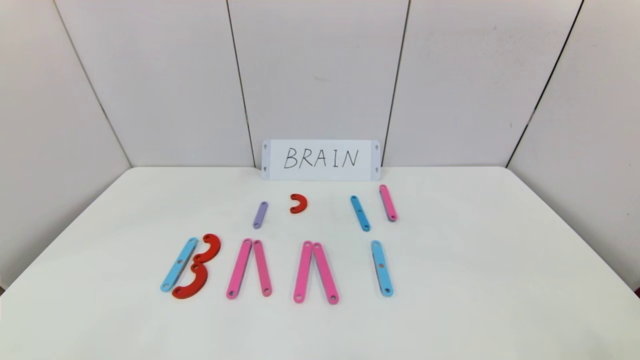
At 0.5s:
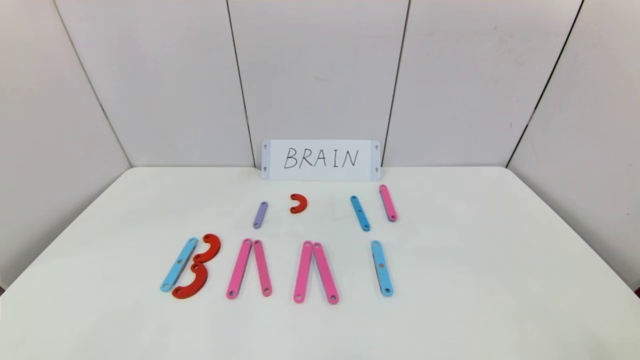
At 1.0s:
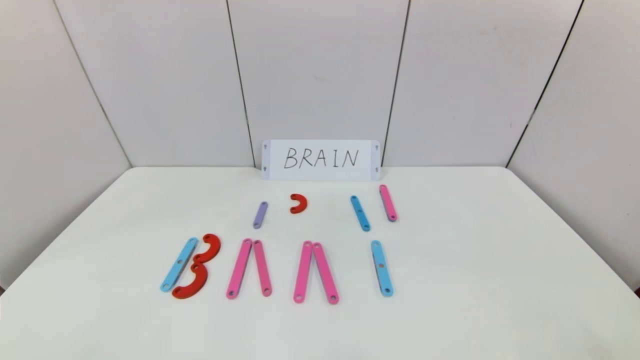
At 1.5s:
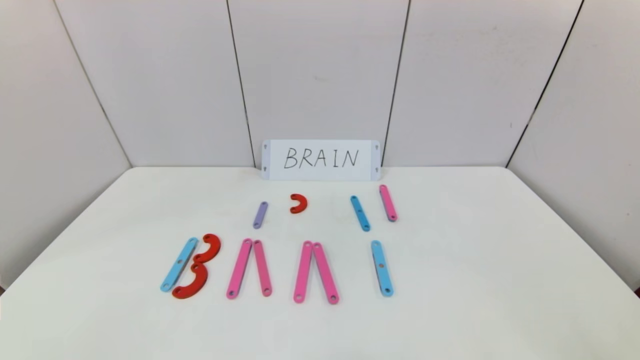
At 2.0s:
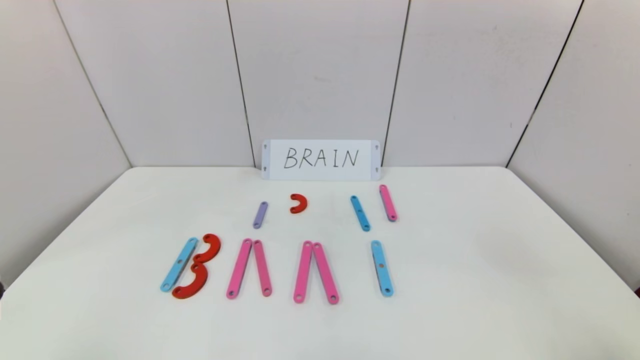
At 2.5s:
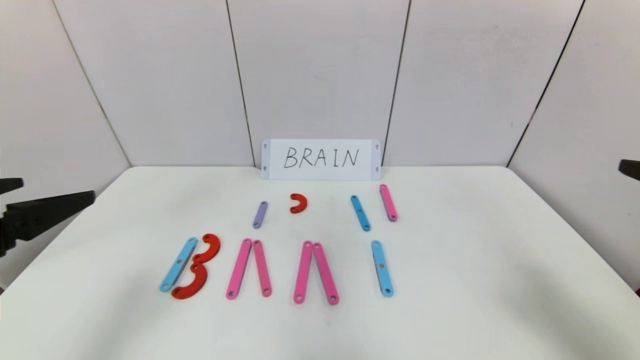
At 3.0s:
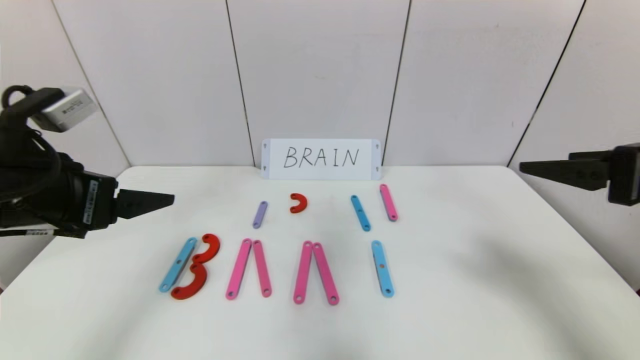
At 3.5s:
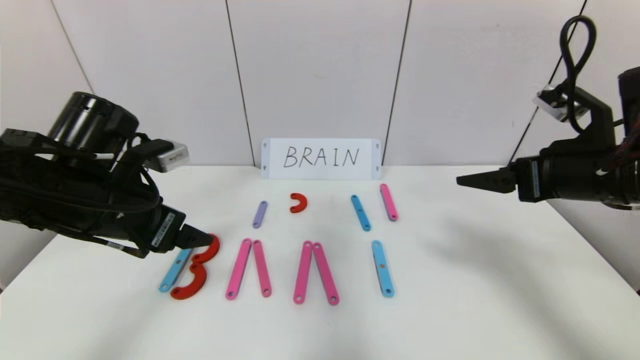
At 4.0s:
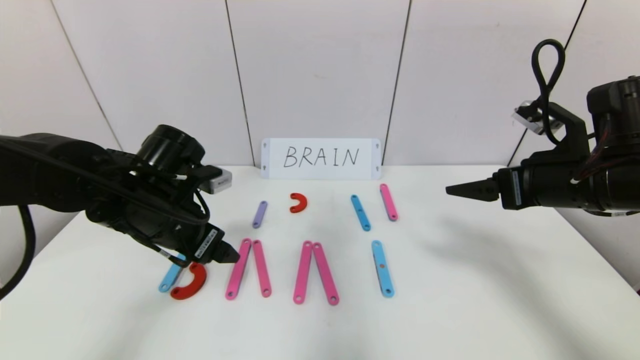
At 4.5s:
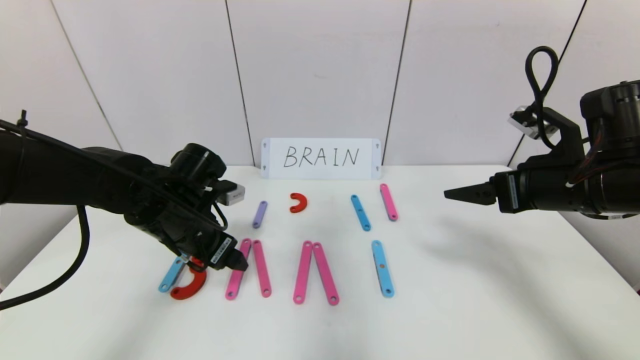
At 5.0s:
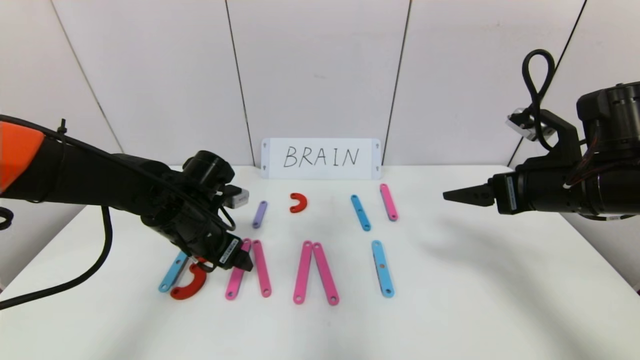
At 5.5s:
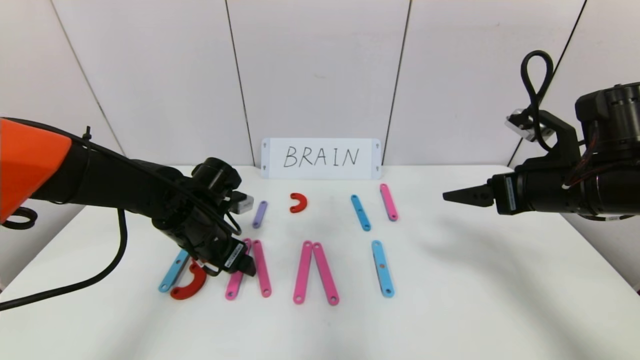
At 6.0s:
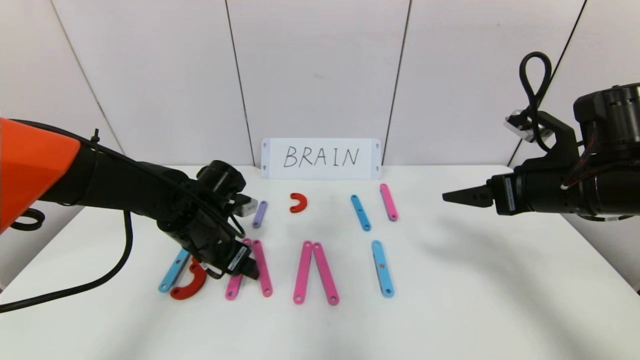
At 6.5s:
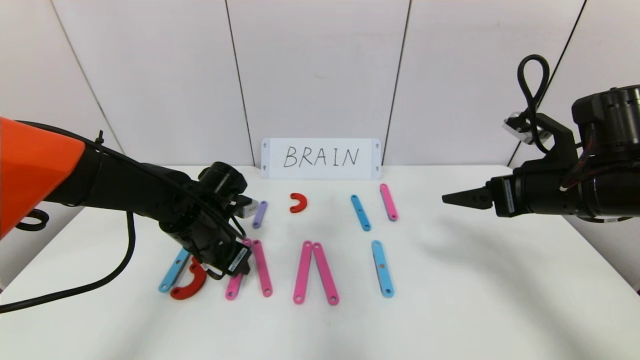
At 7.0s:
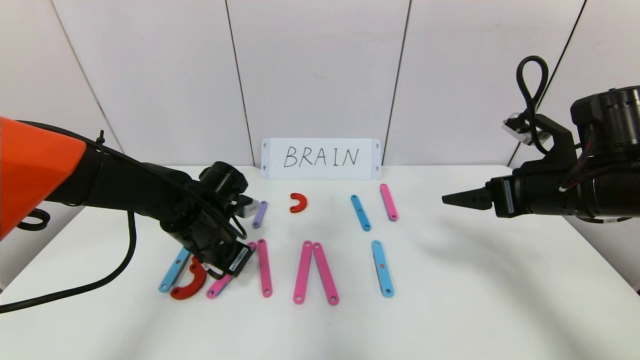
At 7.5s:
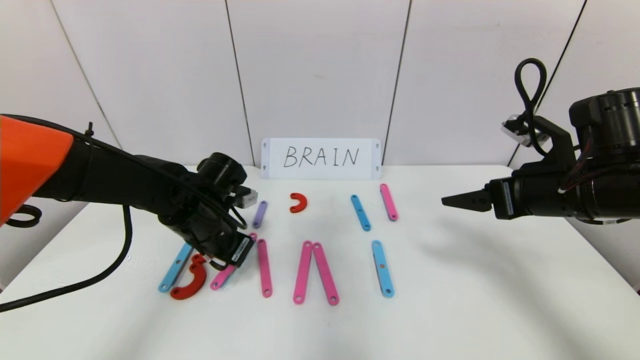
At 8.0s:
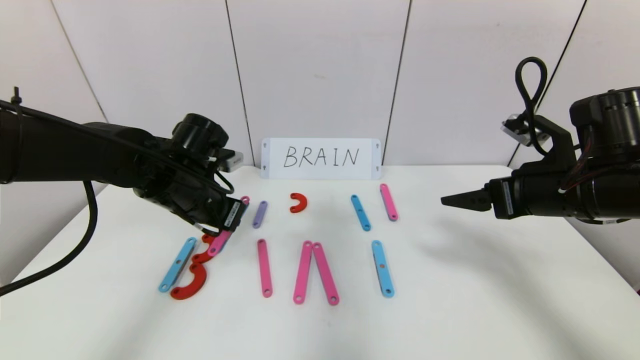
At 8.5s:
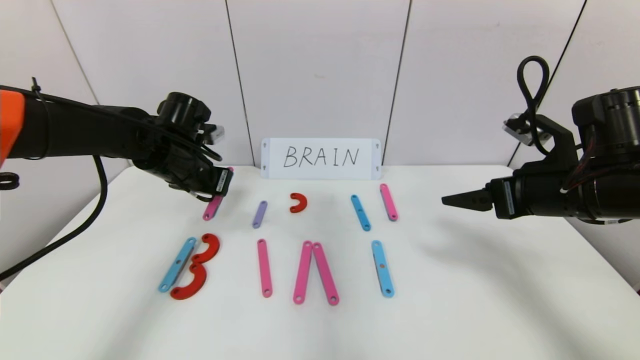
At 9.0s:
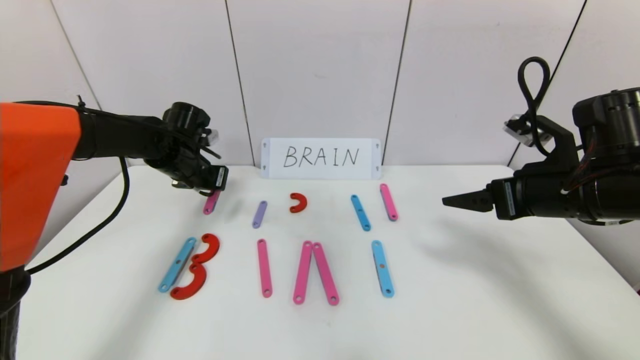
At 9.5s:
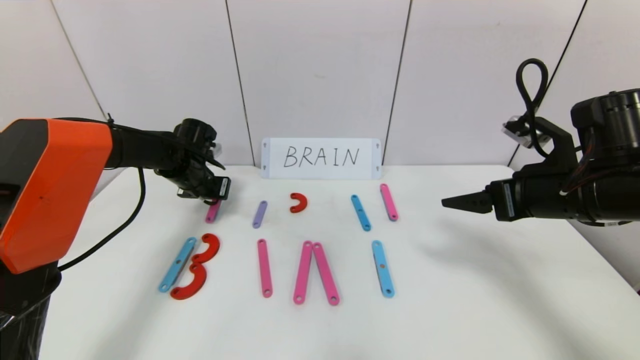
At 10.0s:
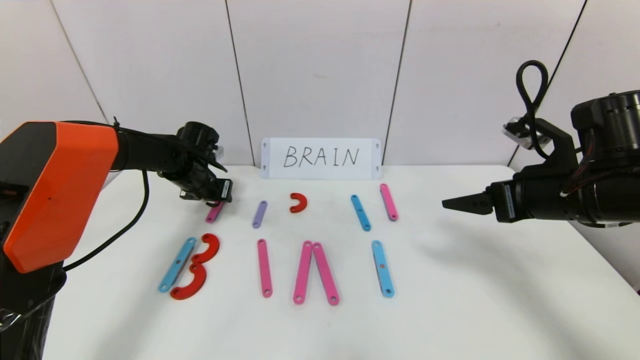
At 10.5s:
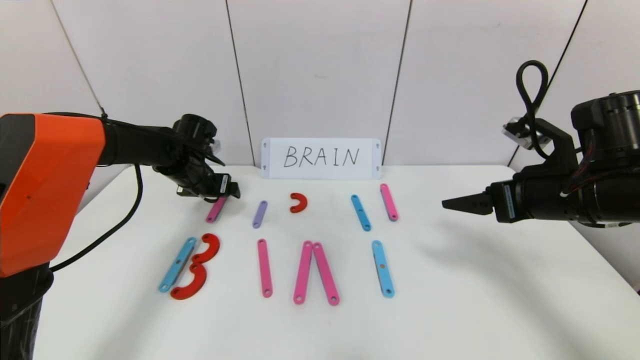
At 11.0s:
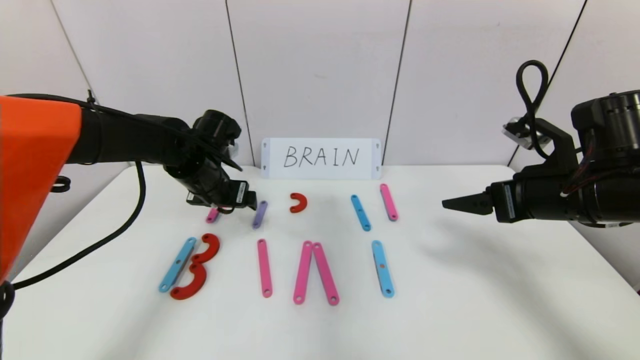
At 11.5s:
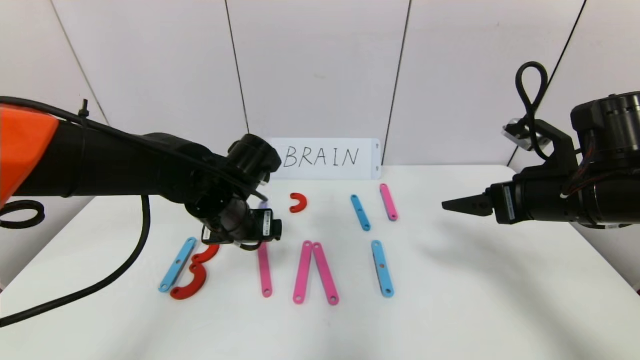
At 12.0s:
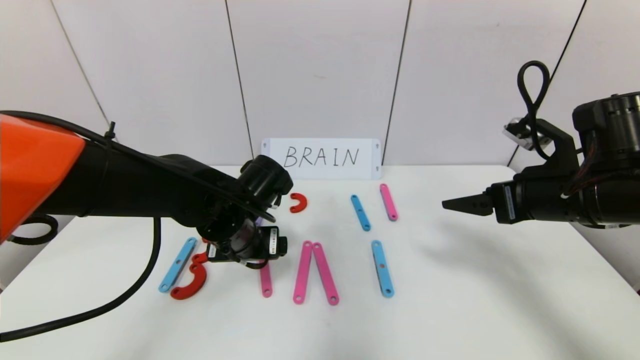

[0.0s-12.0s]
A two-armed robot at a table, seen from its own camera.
Task of the whole recording: rearrange the word baai as brain.
2.0s to 4.0s: The two grippers go roughly 25 cm forward.
4.0s to 6.0s: The left gripper shifts some 5 cm downward.
6.0s to 8.0s: The left gripper shifts some 5 cm upward, and closes its fingers.
8.0s to 10.0s: The left gripper goes some 15 cm forward, to the left and downward, and opens its fingers.
10.0s to 12.0s: The left gripper is displaced backward and to the right by approximately 20 cm, and opens.

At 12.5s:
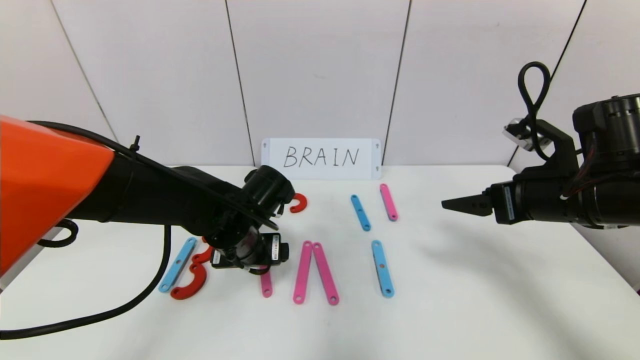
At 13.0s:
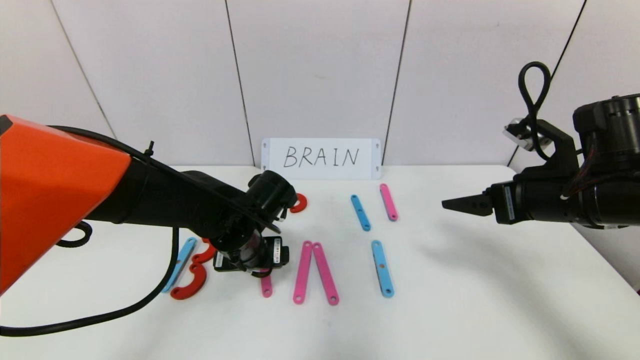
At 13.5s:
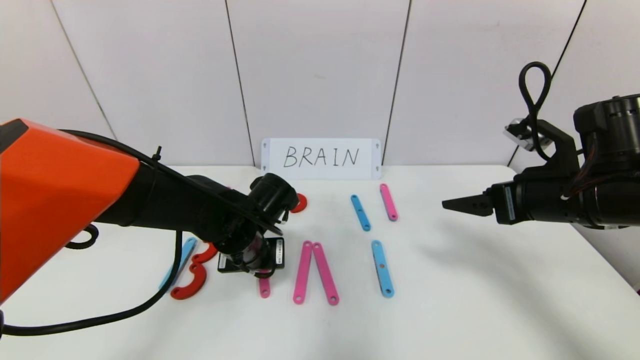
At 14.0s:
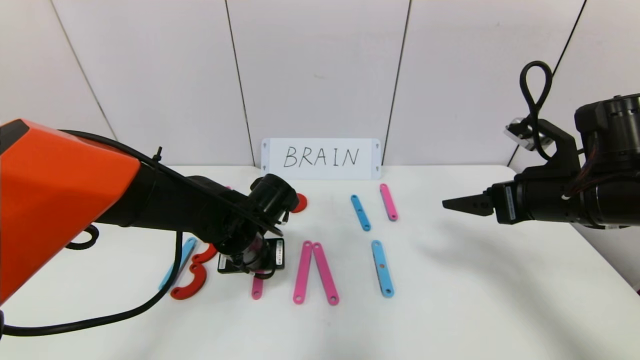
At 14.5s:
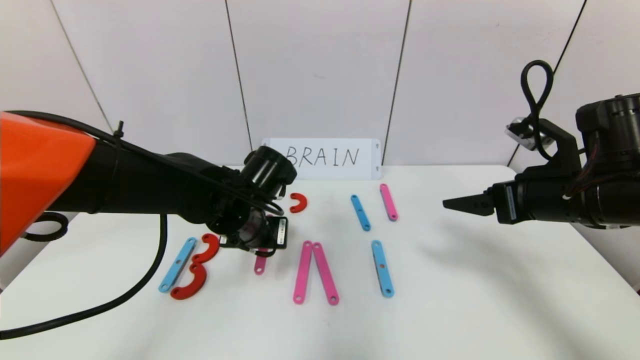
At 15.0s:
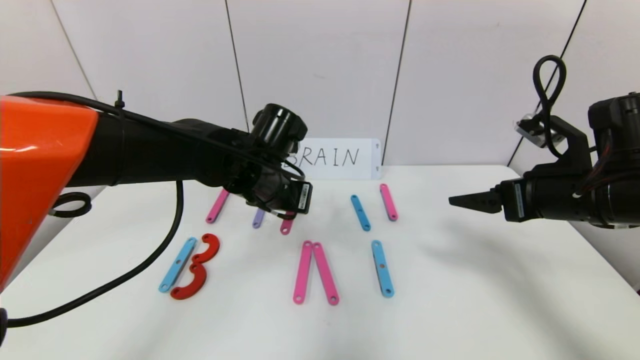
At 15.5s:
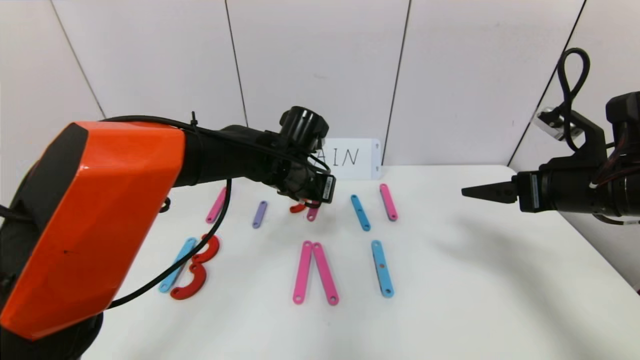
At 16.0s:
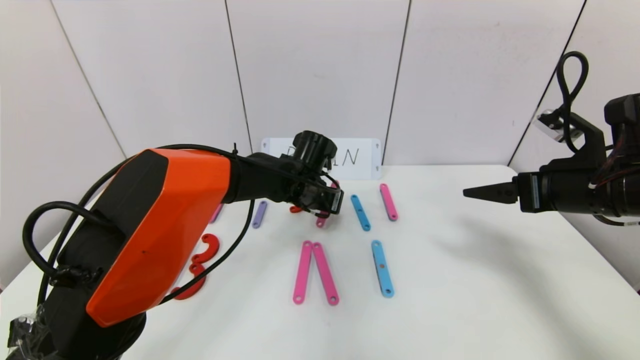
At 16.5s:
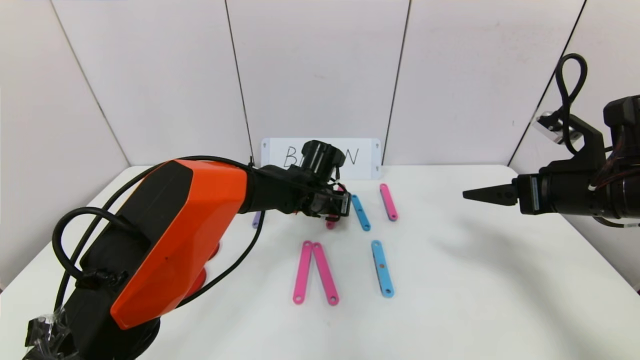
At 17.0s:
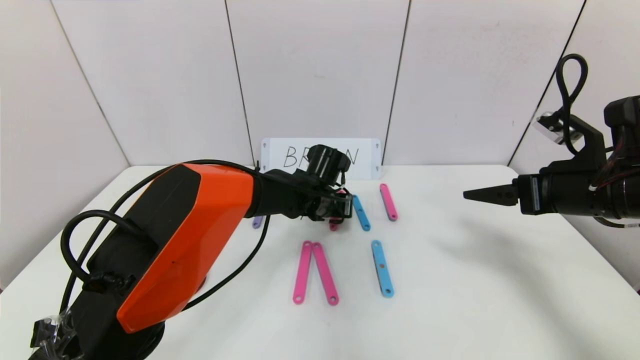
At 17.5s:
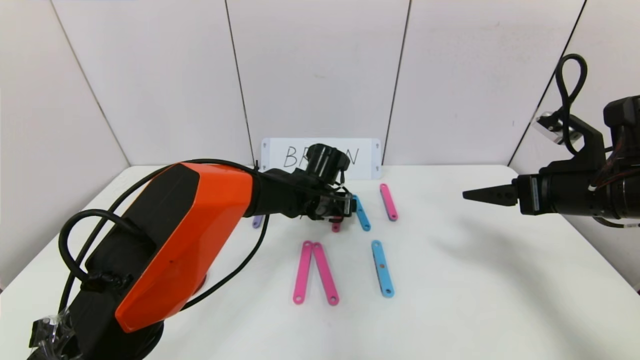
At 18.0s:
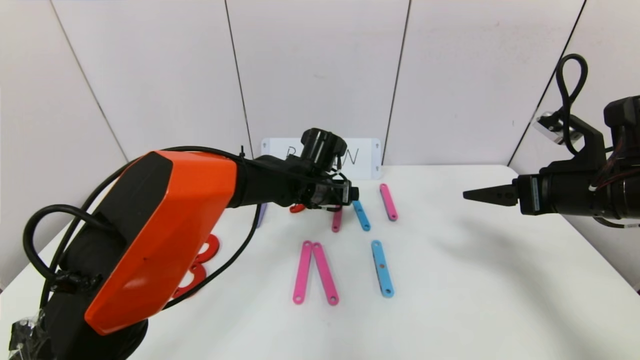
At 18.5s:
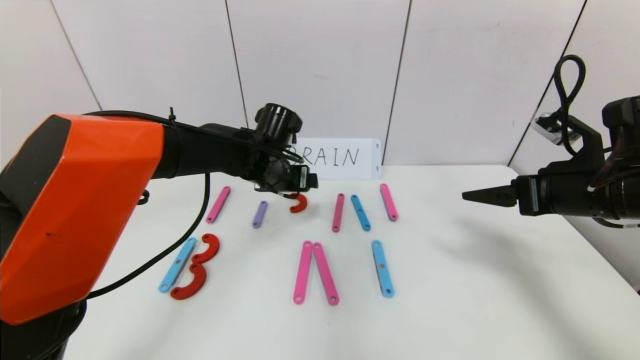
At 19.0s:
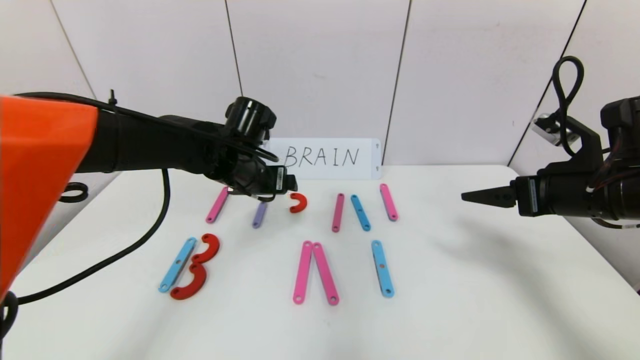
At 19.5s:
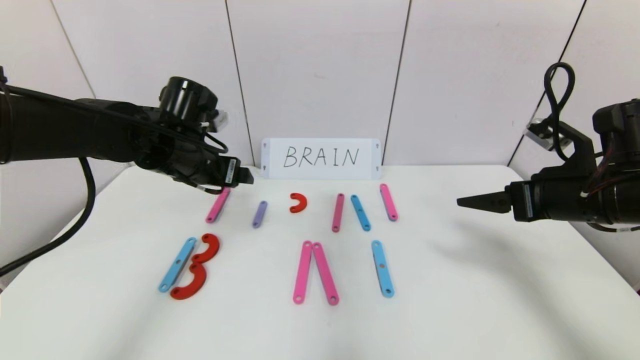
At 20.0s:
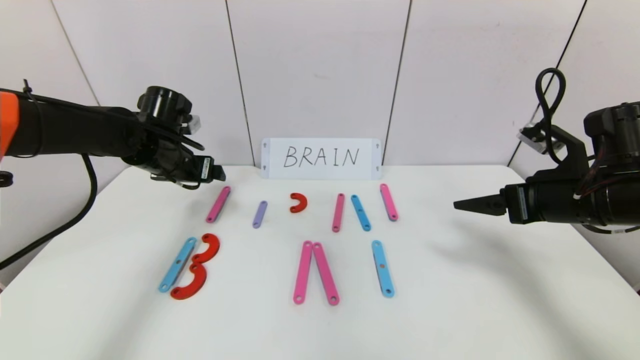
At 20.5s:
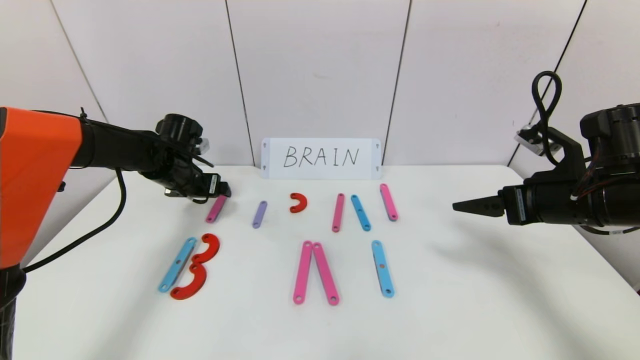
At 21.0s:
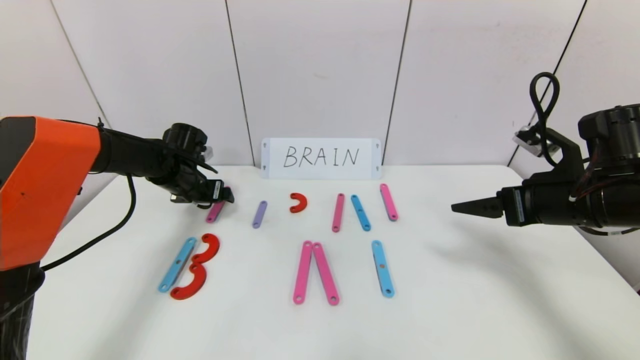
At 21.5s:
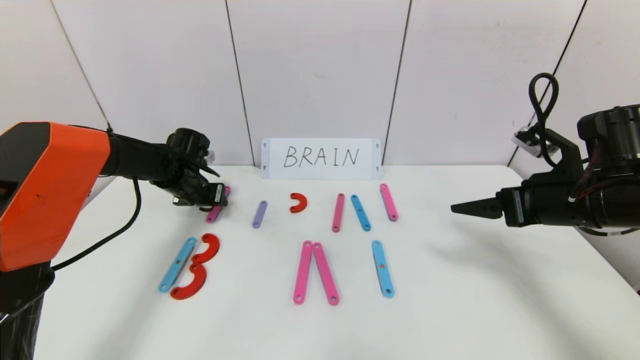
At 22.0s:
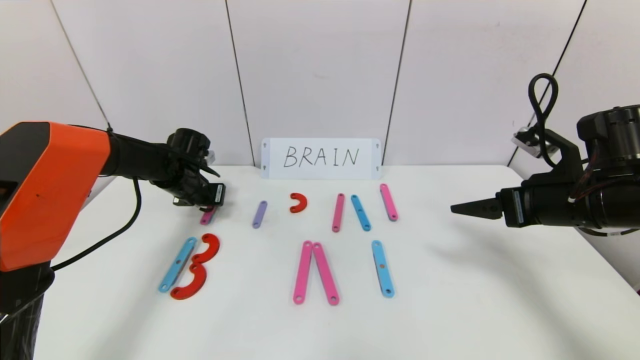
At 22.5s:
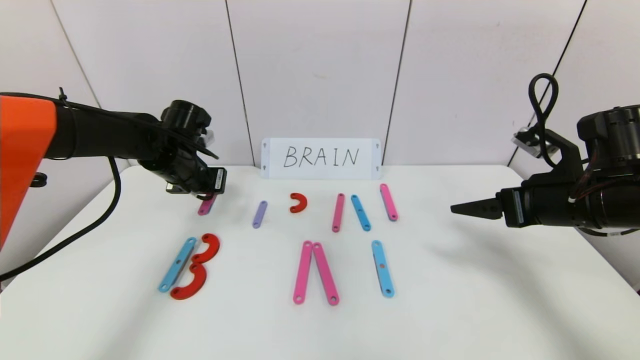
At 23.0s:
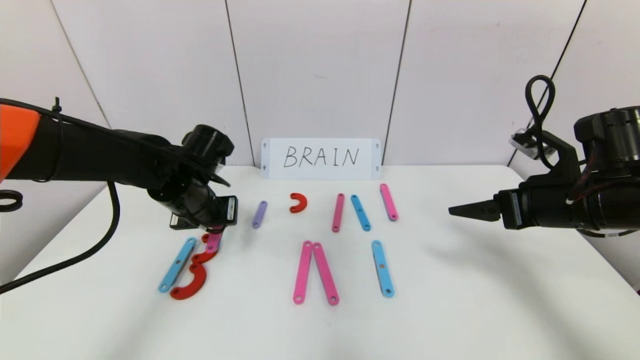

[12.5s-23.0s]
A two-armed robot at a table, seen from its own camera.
Task of the whole recording: rearrange the word baai as brain.
Step, 12.5s to 17.5s: Disassemble the second character A.
12.5s to 14.5s: The left gripper closes.
14.5s to 16.5s: The left gripper shifts approximately 15 cm forward and to the right.
16.5s to 19.0s: The left gripper goes approximately 15 cm to the left and upward, and opens its fingers.
19.0s to 21.0s: The left gripper is displaced to the left, forward and downward by about 15 cm.
21.0s to 23.0s: The left gripper heads backward and to the right, covering about 15 cm, and closes up.
